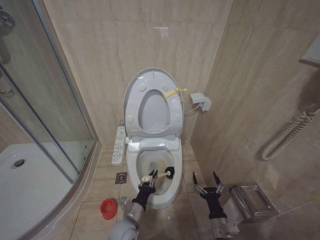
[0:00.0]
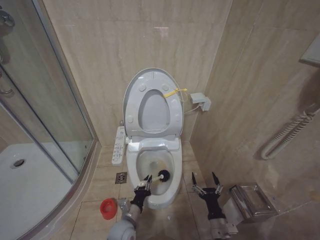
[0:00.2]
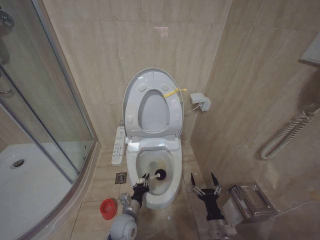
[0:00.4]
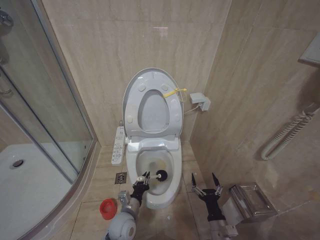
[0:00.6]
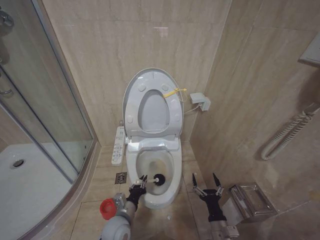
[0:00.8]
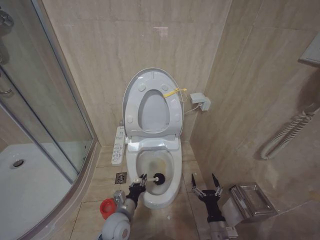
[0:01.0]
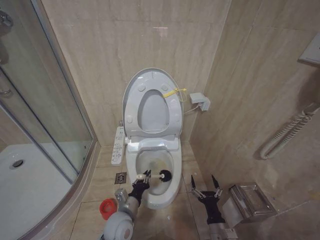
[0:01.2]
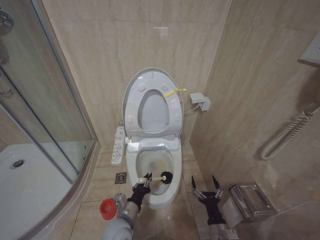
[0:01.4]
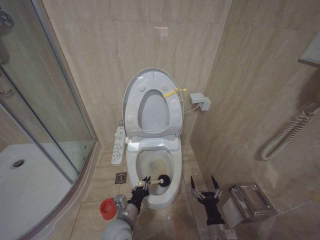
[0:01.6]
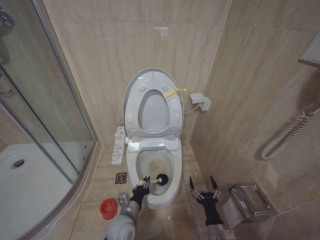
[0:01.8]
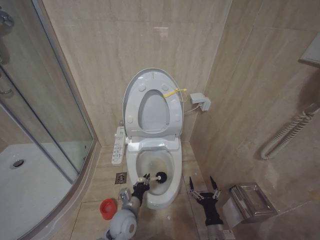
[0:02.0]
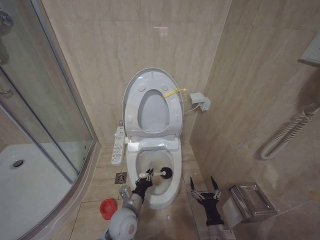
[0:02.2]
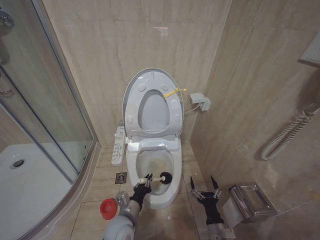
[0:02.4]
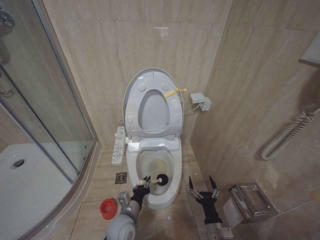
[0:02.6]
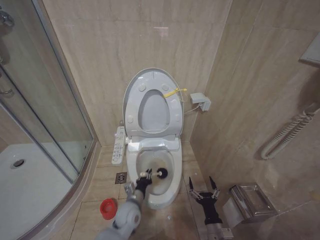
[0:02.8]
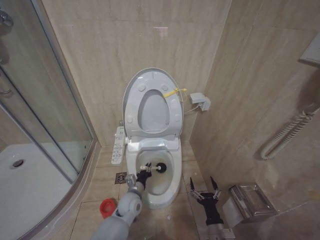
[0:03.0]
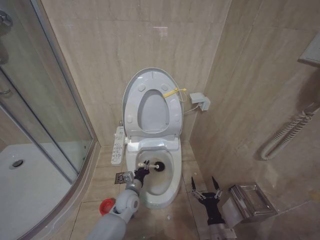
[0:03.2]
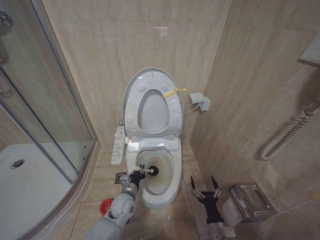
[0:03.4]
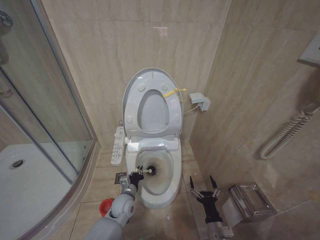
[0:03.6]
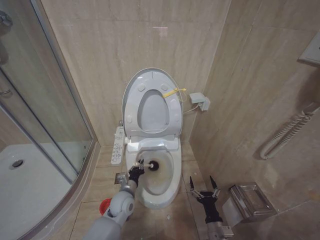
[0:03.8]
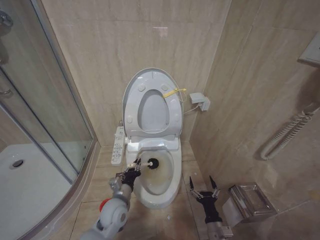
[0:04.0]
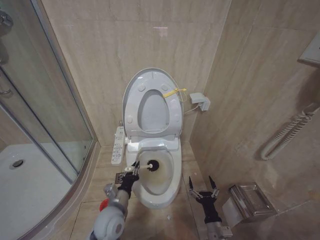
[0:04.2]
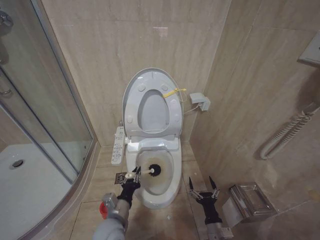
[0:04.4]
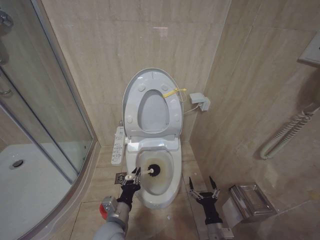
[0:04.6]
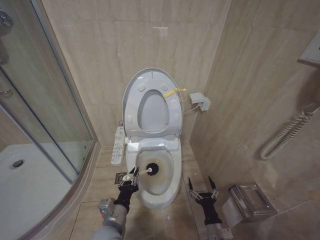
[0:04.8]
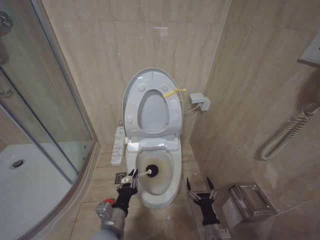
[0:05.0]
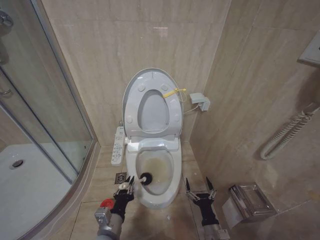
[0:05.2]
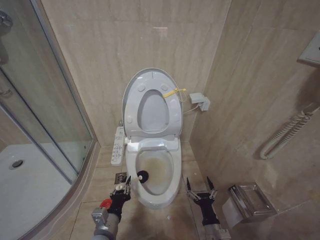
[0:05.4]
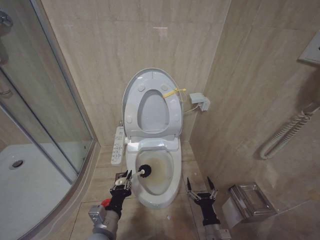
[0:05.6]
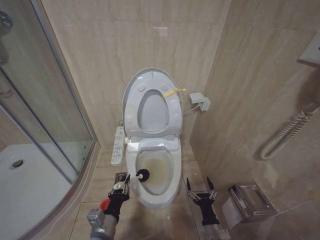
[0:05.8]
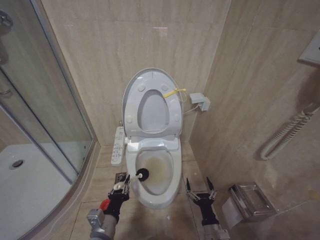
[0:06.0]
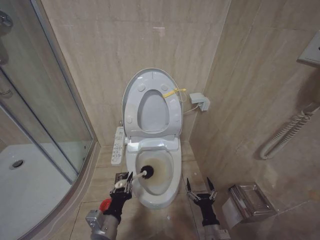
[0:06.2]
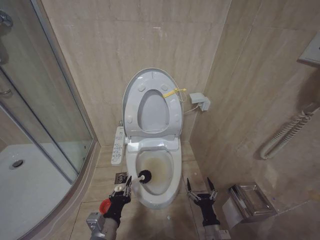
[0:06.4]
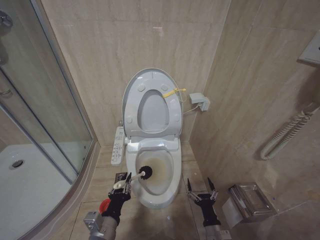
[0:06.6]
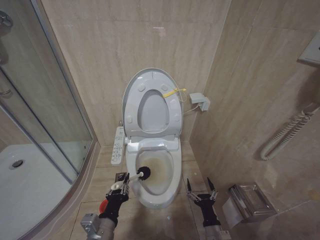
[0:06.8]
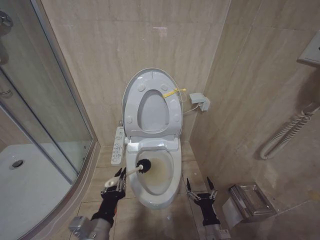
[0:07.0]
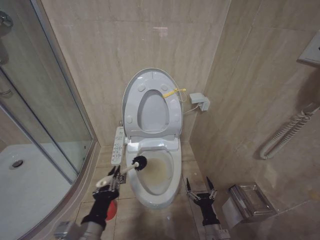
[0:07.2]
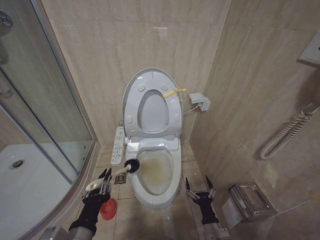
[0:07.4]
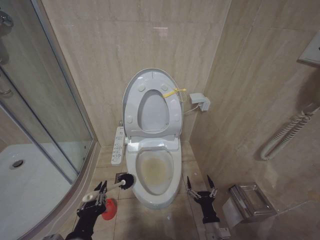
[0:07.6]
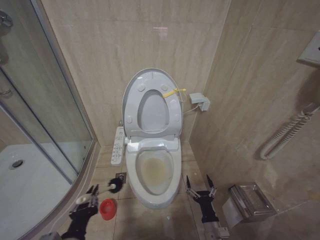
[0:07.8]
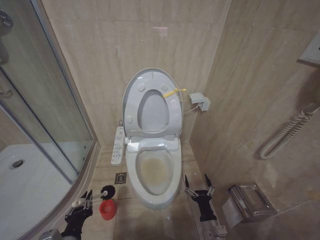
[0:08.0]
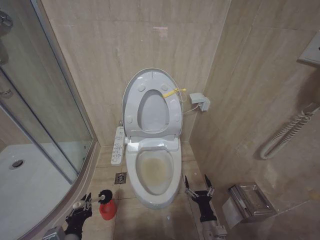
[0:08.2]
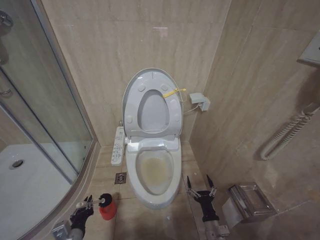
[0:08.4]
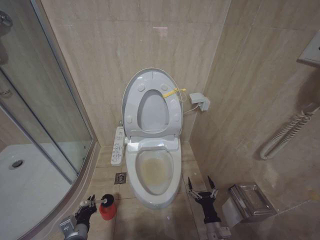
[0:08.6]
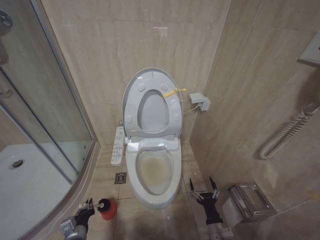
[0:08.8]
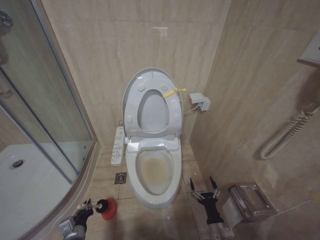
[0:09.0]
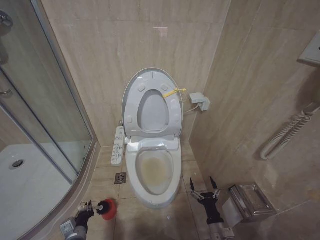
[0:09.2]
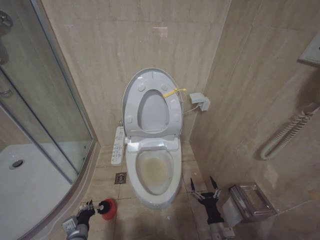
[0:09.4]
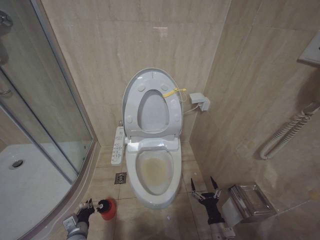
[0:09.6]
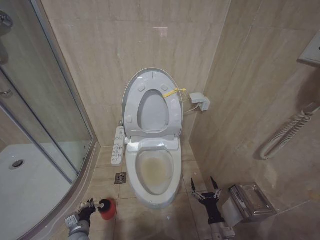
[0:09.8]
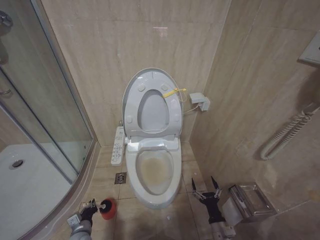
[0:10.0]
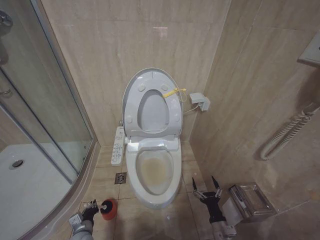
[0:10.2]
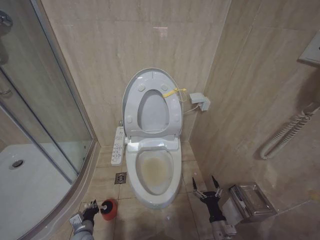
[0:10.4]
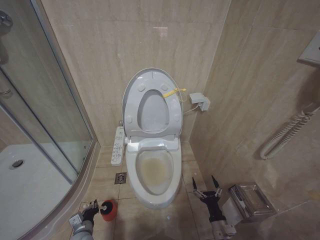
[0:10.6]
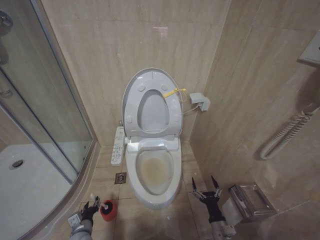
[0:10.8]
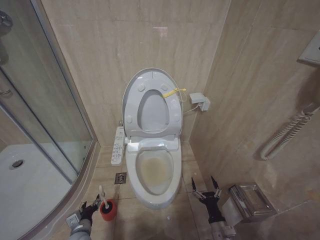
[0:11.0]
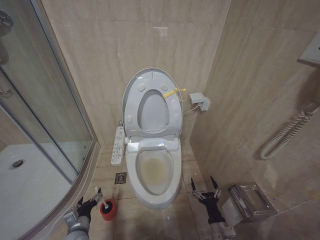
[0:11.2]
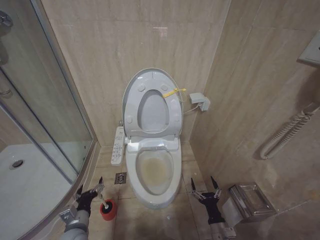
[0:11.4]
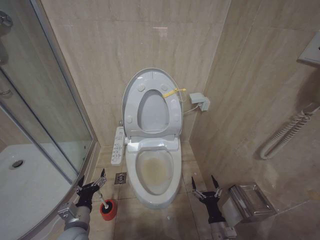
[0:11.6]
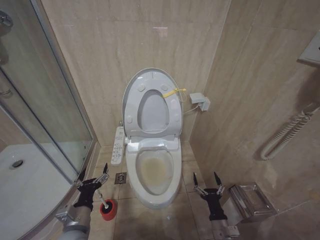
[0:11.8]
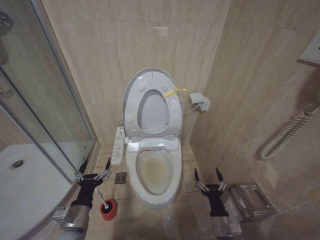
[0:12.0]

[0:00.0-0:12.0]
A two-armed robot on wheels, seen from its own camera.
Task of the whole recording: Open the toilet lid, clean the toilet bowl with a toilet brush, close the toilet lid, and flush.
0:00.0 to 0:01.6: The grippers make only small movements.
0:01.6 to 0:03.0: The left gripper moves forward and downward, some 10 cm.
0:03.0 to 0:04.4: The left gripper is displaced backward, upward and to the left by roughly 15 cm.
0:04.4 to 0:06.0: The left gripper heads backward, covering roughly 5 cm.
0:06.0 to 0:07.6: The left gripper travels upward and backward by some 15 cm.
0:07.6 to 0:09.0: The left gripper shifts roughly 25 cm downward, forward and to the left.
0:09.0 to 0:10.4: The left gripper travels downward by some 5 cm.
0:10.4 to 0:12.0: The right gripper changes place by some 5 cm; the left gripper is displaced upward by approximately 20 cm, and opens up.

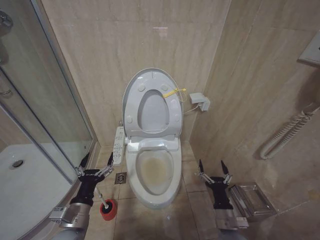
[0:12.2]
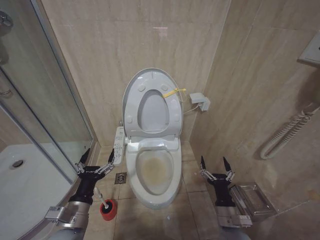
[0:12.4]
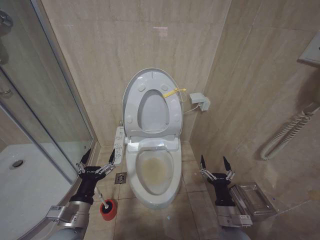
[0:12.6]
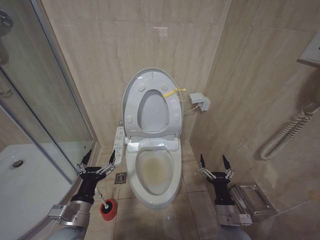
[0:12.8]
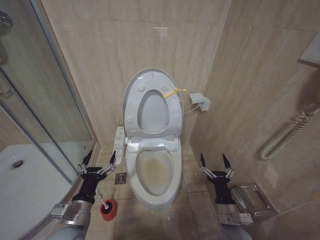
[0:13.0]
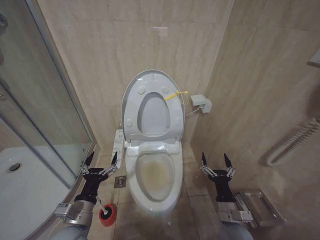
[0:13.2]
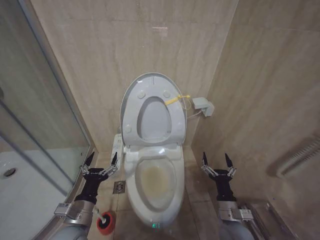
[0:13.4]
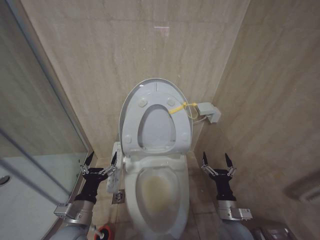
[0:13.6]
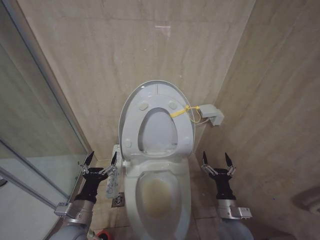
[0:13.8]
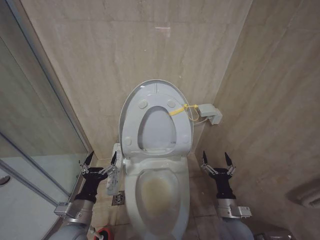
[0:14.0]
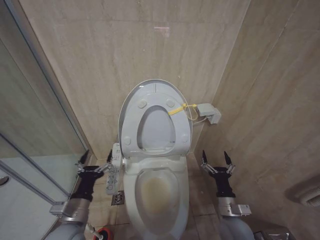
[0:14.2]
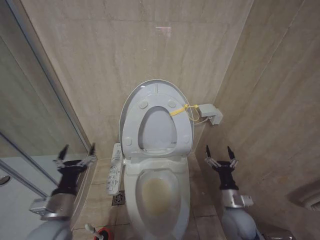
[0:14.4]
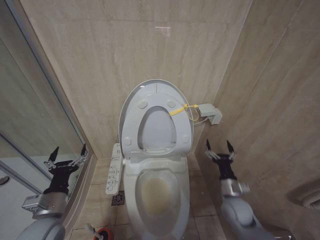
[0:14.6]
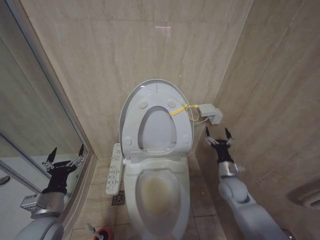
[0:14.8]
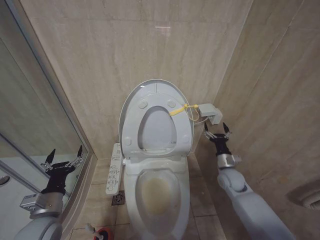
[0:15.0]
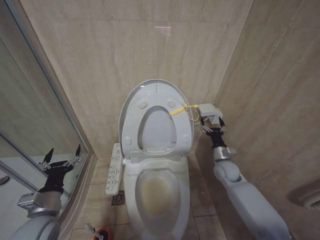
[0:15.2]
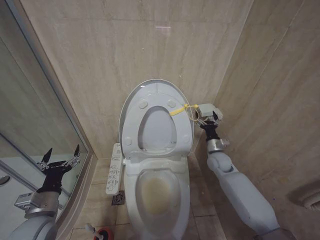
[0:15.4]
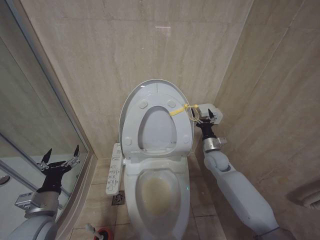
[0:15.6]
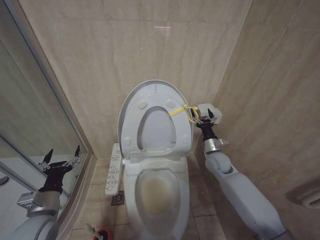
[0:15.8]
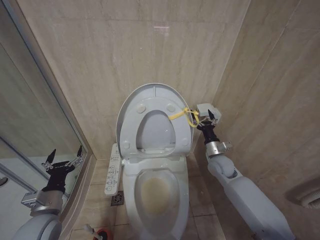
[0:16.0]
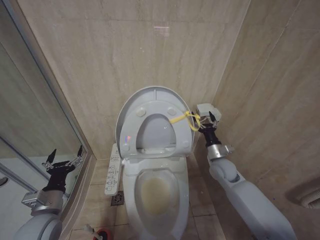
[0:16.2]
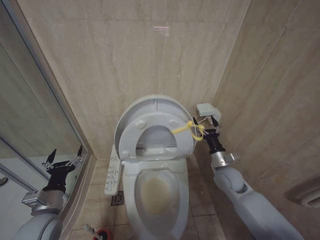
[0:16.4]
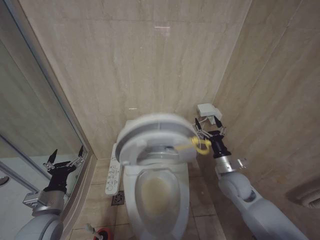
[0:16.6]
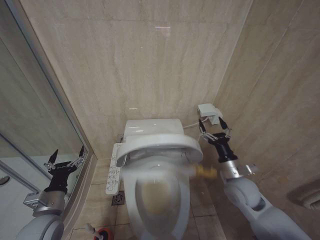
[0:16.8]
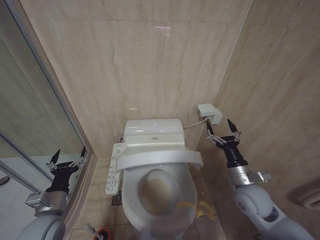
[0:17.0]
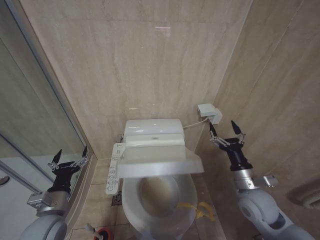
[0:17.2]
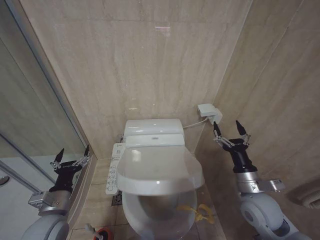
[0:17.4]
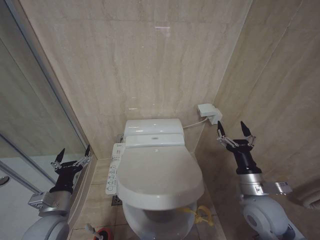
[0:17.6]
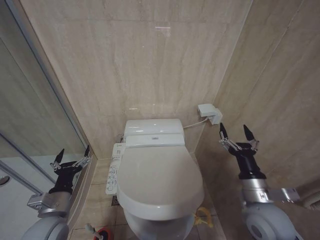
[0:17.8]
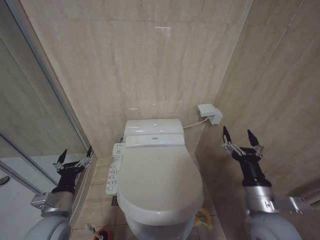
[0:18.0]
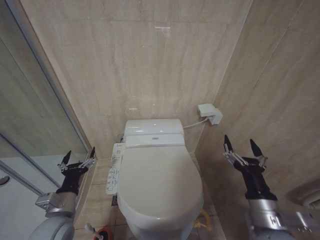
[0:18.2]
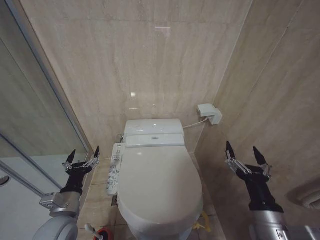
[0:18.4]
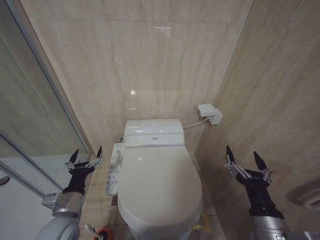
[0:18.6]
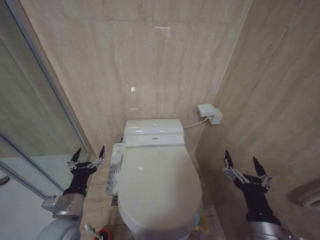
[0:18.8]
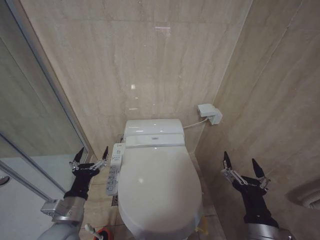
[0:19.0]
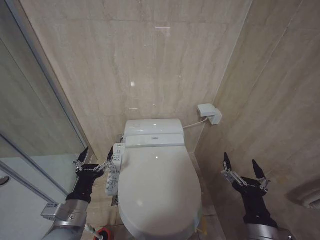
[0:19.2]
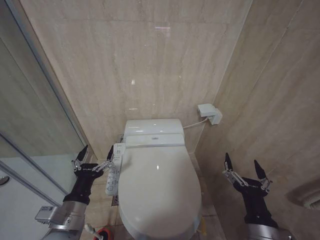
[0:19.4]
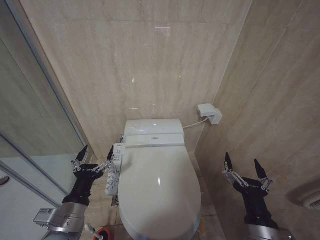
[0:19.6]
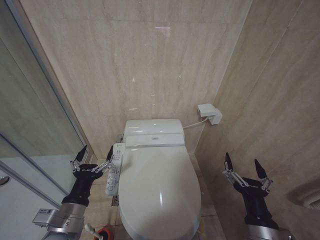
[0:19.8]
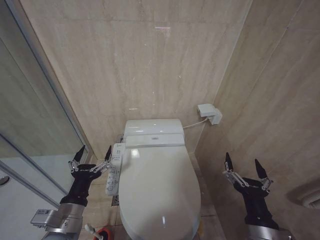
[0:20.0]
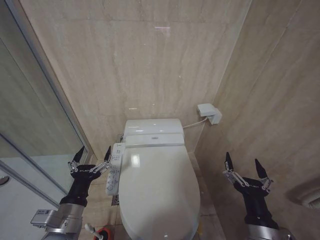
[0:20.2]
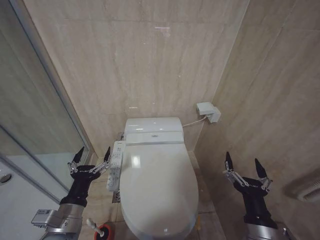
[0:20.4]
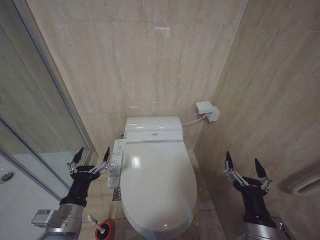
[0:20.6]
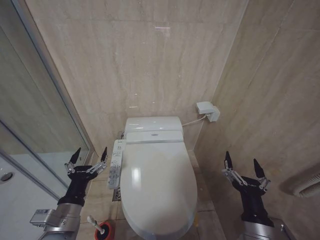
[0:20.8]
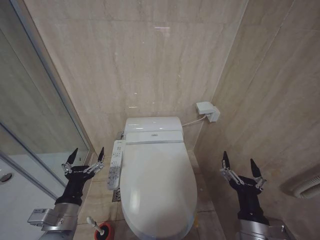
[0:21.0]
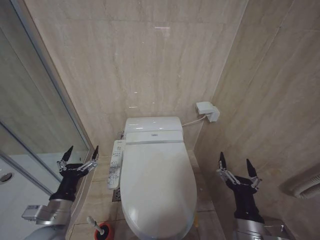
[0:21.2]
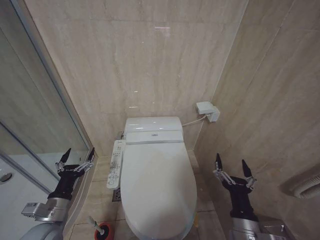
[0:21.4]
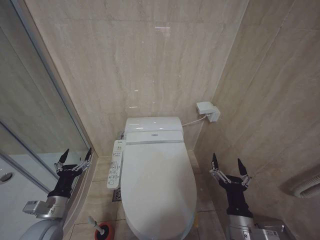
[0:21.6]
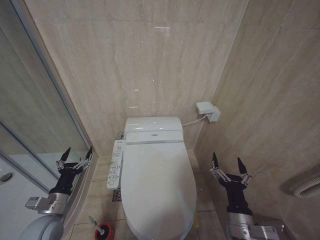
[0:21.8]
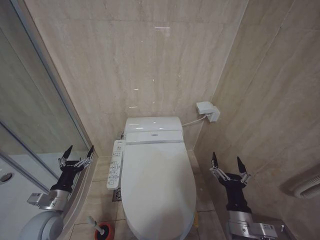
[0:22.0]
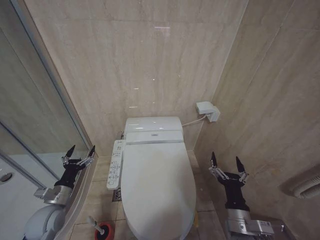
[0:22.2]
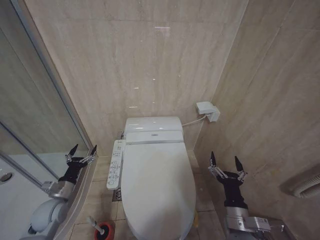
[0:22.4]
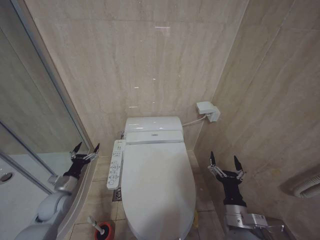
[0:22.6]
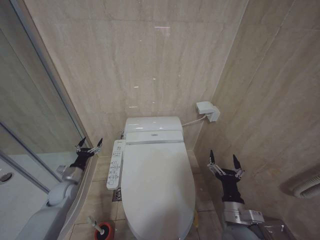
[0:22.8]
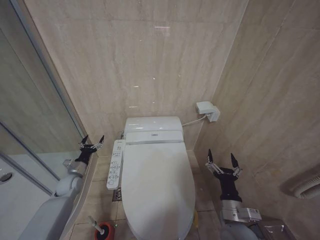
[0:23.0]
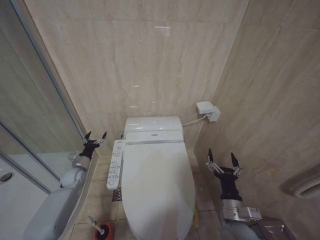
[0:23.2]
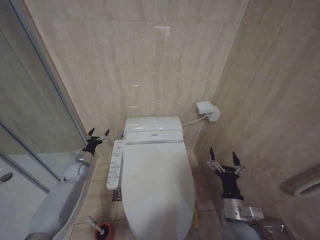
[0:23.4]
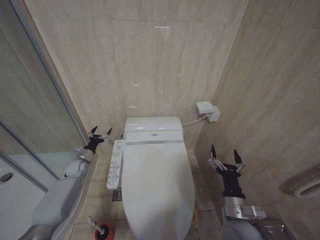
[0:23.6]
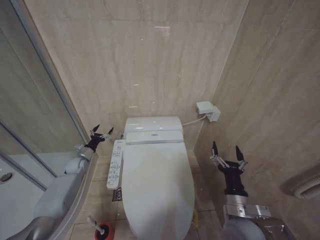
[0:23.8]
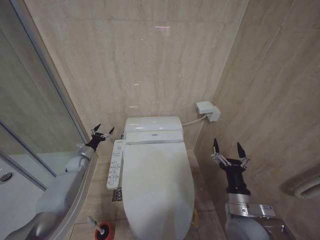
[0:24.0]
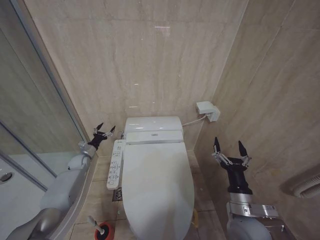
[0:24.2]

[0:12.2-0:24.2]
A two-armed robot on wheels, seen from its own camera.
Task of the whole recording: Open the toilet lid, clean the toilet bowl with a toilet brush, close the toilet lid, and flush.
0:13.8 to 0:15.2: The right gripper heads forward, covering roughly 20 cm. The left gripper moves to the left, some 10 cm.
0:15.2 to 0:16.6: The right gripper travels backward by roughly 5 cm.
0:16.6 to 0:18.2: The right gripper travels backward by roughly 20 cm.
0:18.2 to 0:19.8: The right gripper moves backward, some 5 cm. Meanwhile the left gripper travels to the right, backward and upward by roughly 10 cm.
0:19.8 to 0:21.2: The left gripper shifts by roughly 5 cm.
0:21.2 to 0:22.6: The right gripper goes some 10 cm downward and forward. The left gripper travels forward, downward and to the left by some 20 cm.
0:22.6 to 0:24.2: The left gripper shifts some 20 cm forward.
